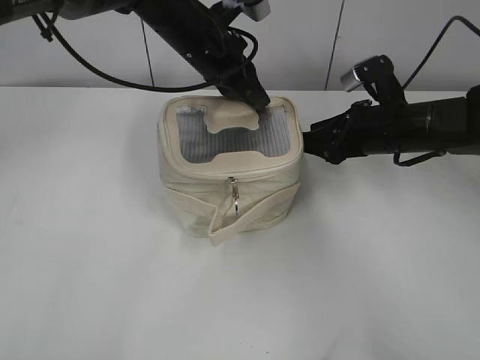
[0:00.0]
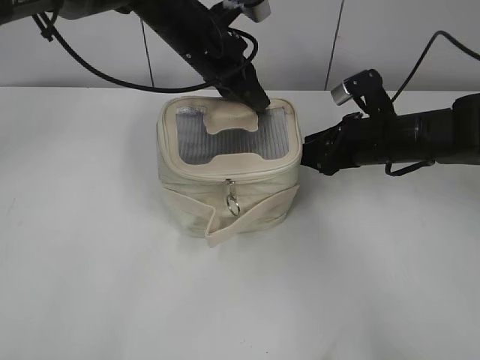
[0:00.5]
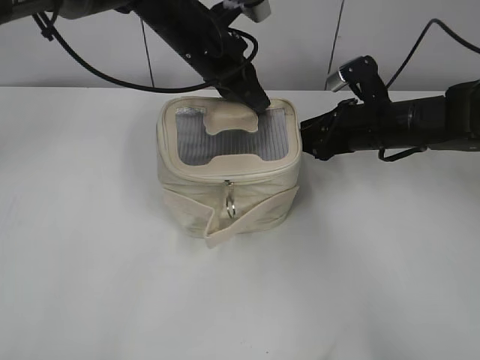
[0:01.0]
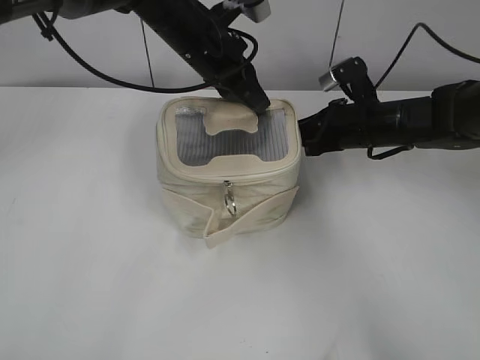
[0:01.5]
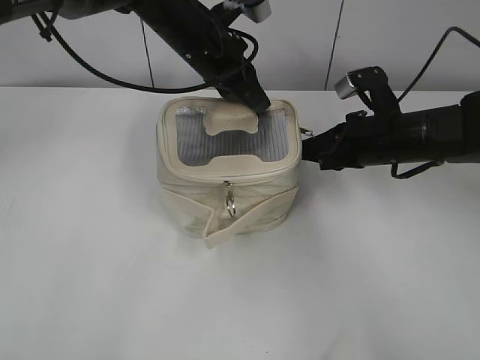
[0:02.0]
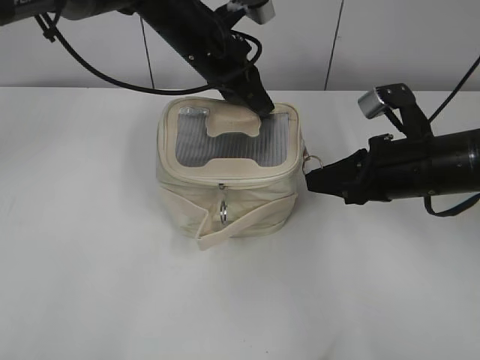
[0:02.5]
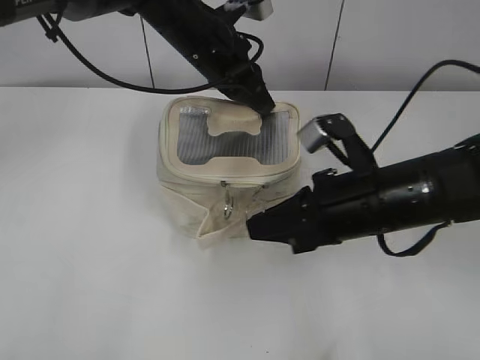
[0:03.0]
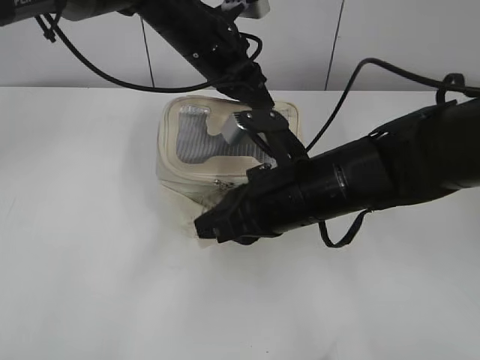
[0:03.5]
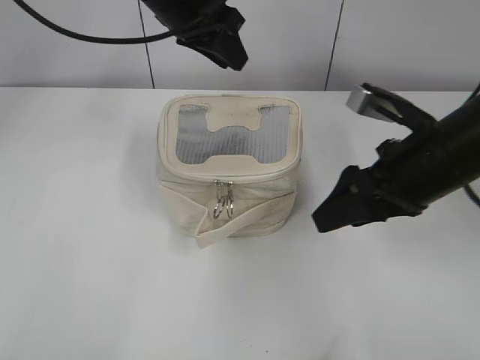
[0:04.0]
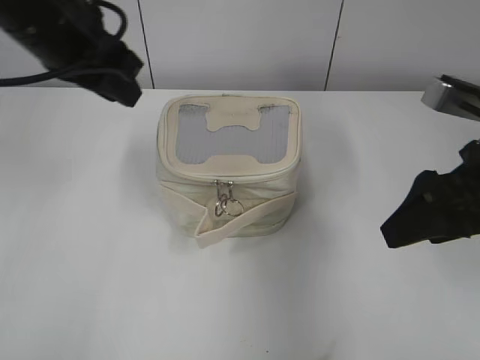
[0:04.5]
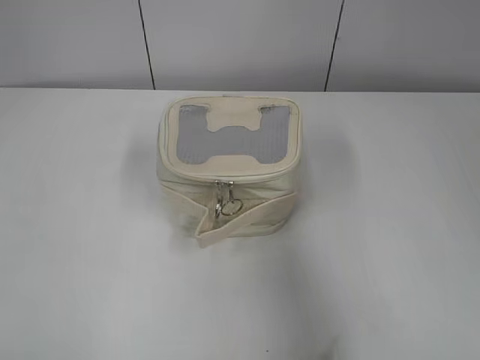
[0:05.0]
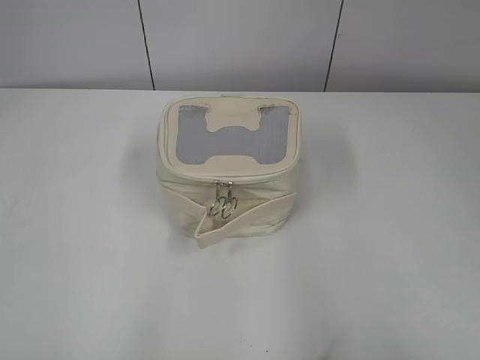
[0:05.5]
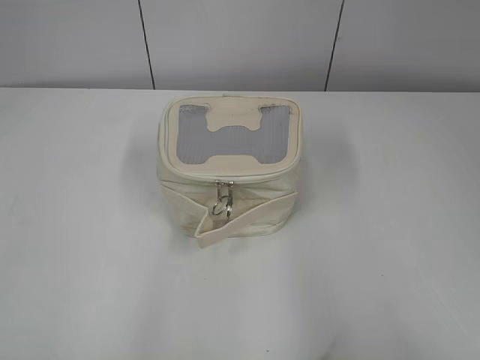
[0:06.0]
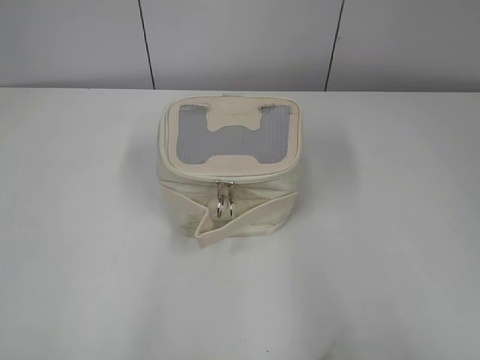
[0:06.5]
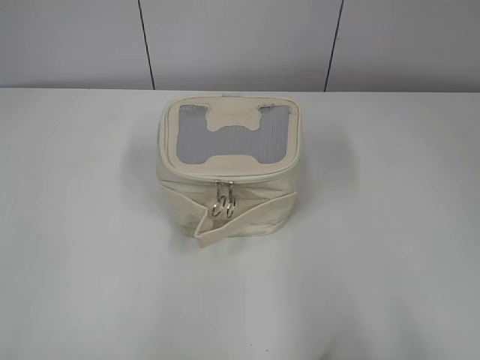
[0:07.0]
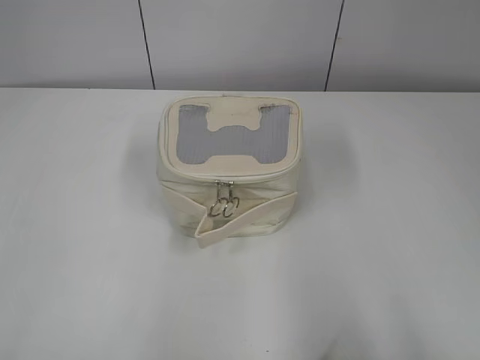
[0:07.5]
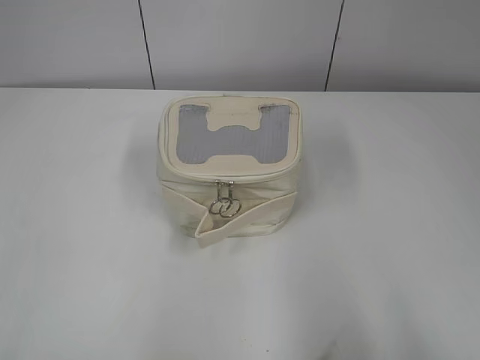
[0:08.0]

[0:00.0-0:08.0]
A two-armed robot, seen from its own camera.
Step, 0:00.0 to 0:03.5: Zip up the bag with your right hand.
0:00.0 to 0:02.0: The right gripper closes up.
0:02.0 to 0:04.0: The right gripper shifts approximately 10 cm backward and upward, travels to the left and back again, about 10 cm each way, and opens. The left gripper goes some 5 cm upward, and opens its fingers.
0:04.0 to 0:06.0: The right gripper heads backward and to the right, covering approximately 30 cm; the left gripper is displaced backward and to the left by some 50 cm, and opens.

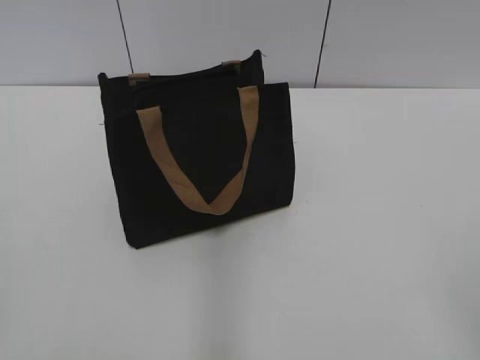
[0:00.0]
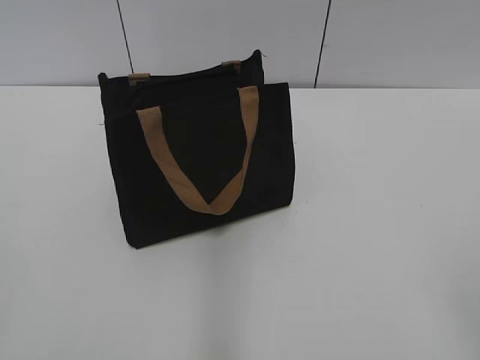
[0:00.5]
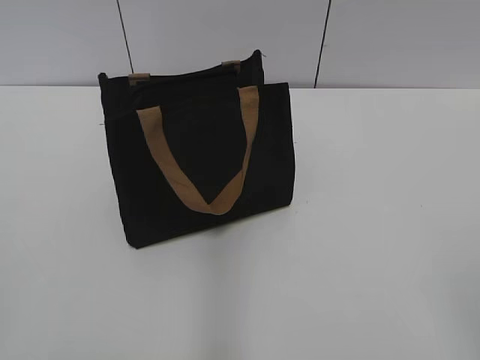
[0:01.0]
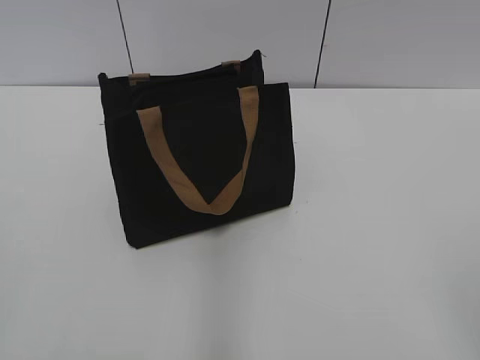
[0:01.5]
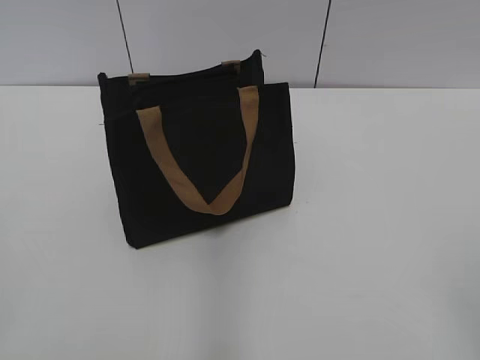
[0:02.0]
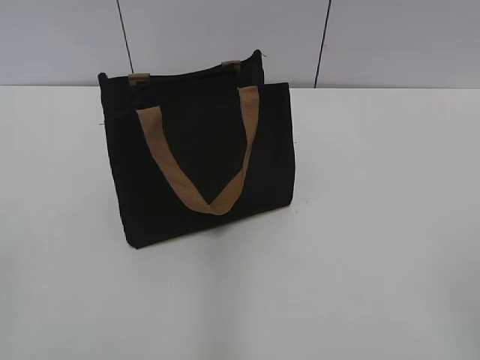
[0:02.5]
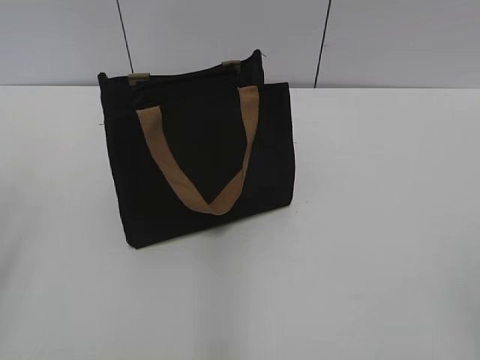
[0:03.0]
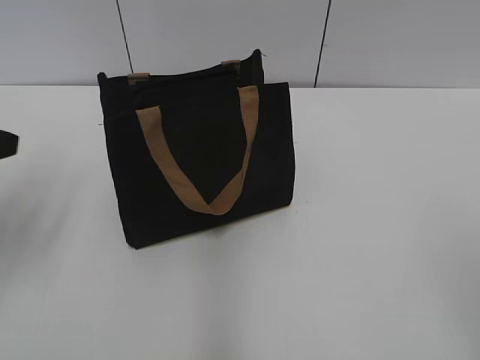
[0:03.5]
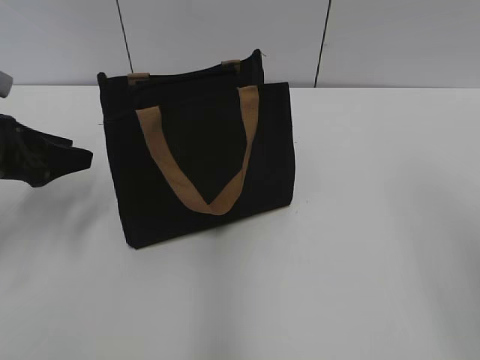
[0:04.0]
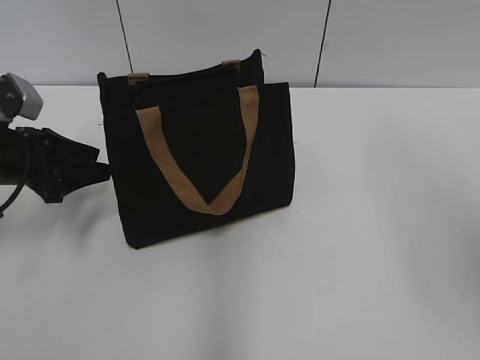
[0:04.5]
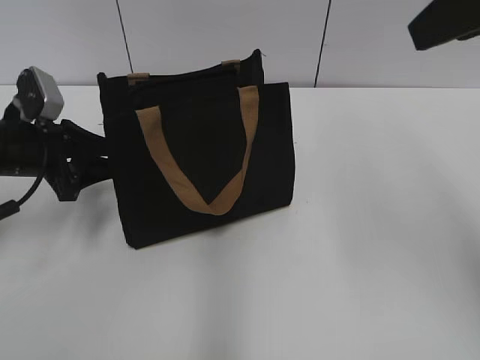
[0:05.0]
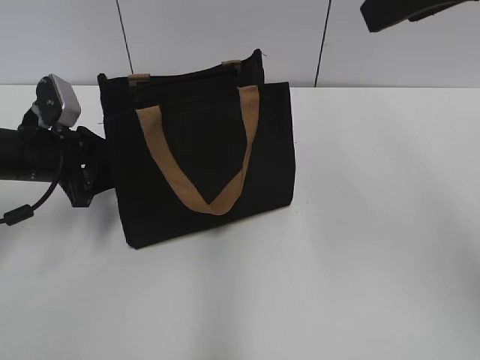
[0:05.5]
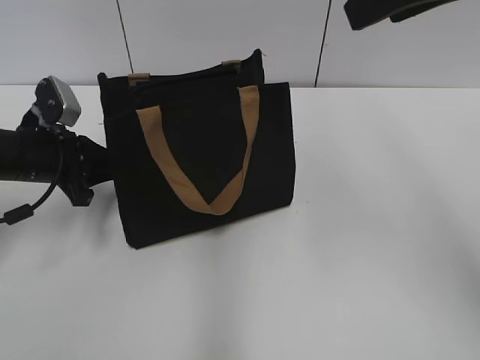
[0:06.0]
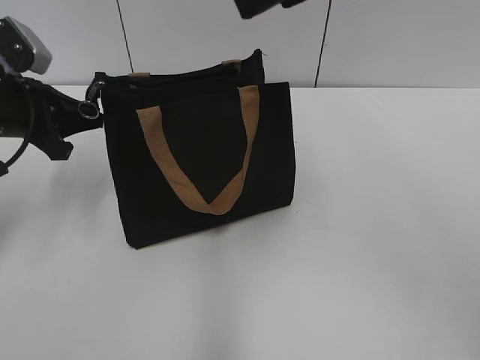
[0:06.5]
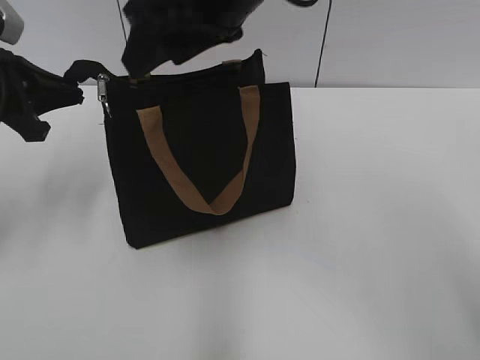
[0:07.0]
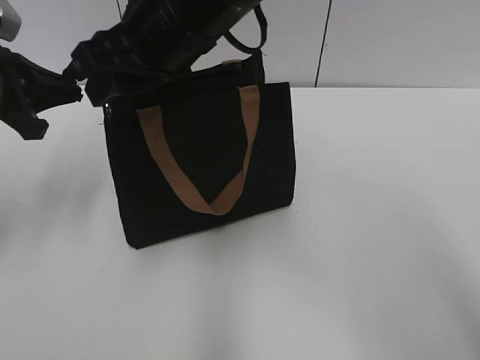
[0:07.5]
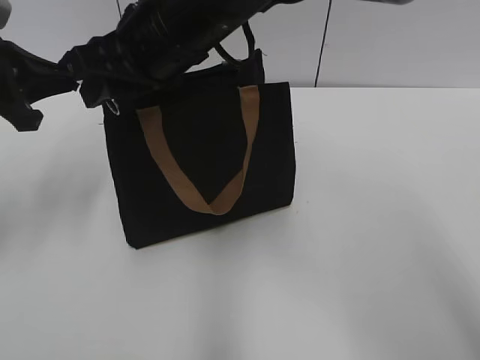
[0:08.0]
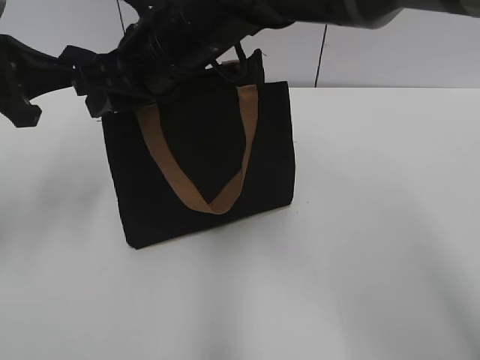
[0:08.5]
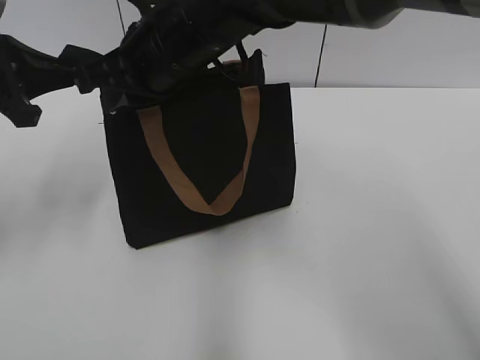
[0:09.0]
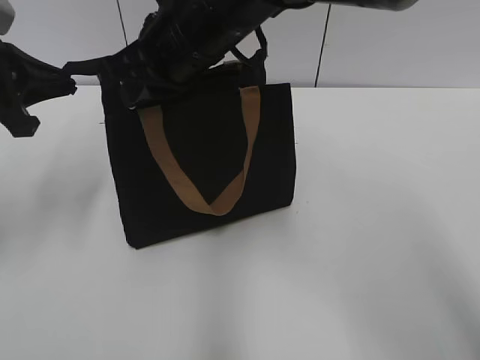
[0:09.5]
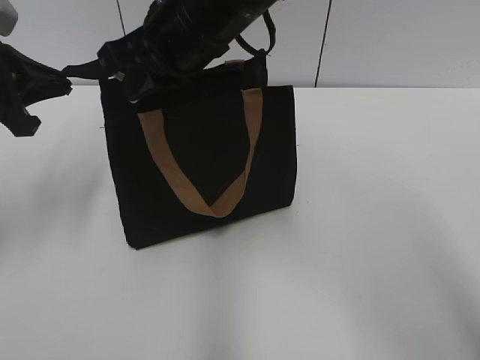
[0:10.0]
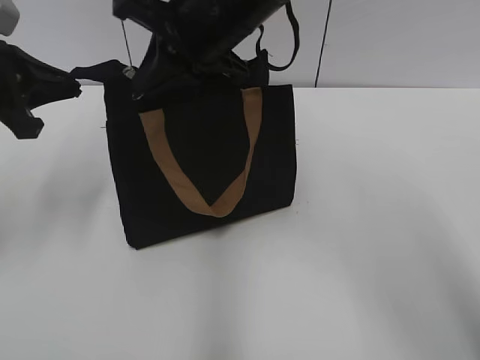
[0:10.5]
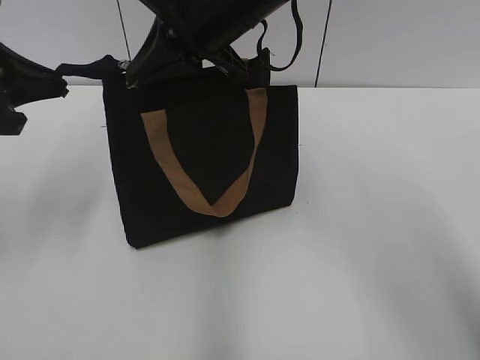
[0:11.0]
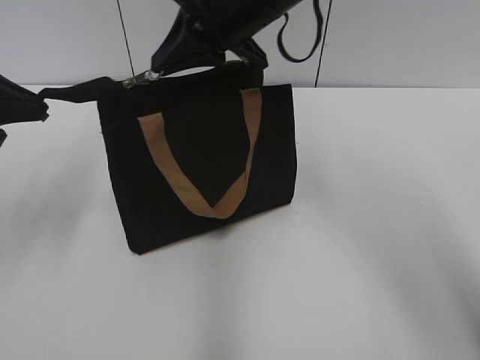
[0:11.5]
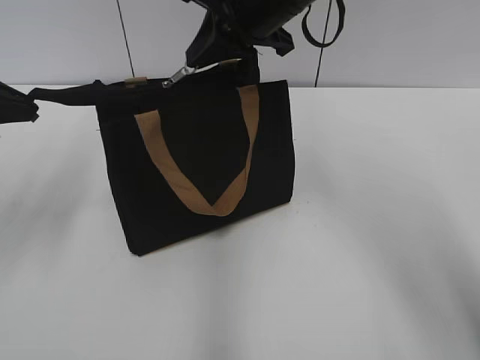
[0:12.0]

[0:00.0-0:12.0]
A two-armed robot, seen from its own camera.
0:02.0 to 0:04.0: The left gripper is displaced forward by roughly 30 cm.
0:04.0 to 0:06.0: The left gripper moves about 5 cm, and closes its fingers. Meanwhile the right gripper moves forward and to the left, some 20 cm.
0:06.0 to 0:08.0: The right gripper is displaced to the left and downward by approximately 25 cm. Meanwhile the left gripper is displaced upward by about 15 cm.
0:08.0 to 0:10.0: The right gripper closes its fingers.
0:10.0 to 0:12.0: The right gripper goes about 5 cm to the right.

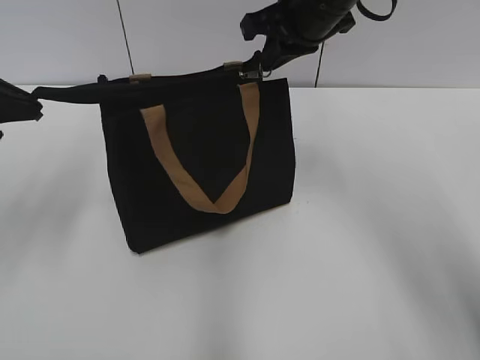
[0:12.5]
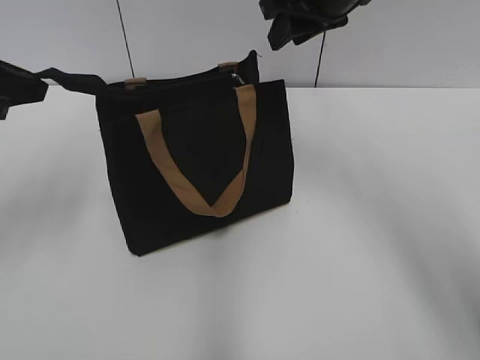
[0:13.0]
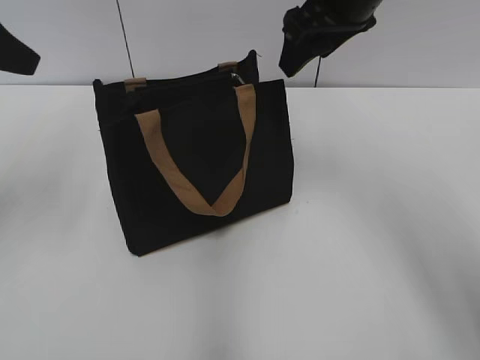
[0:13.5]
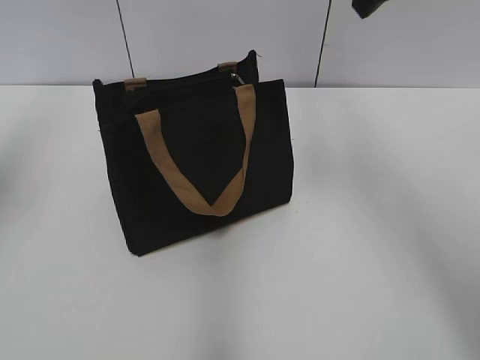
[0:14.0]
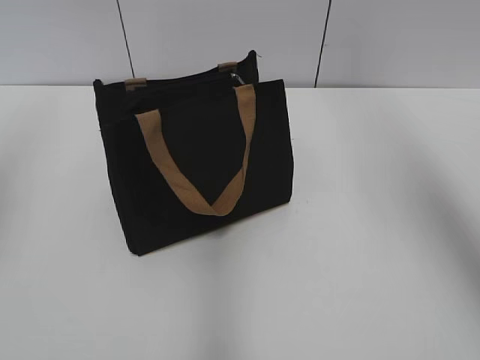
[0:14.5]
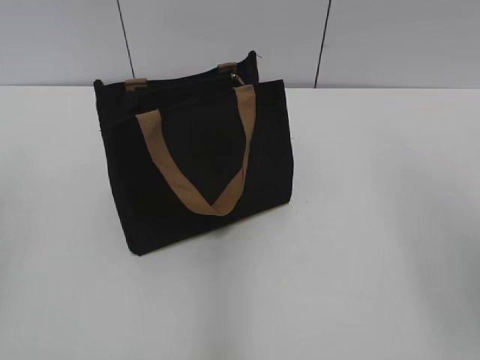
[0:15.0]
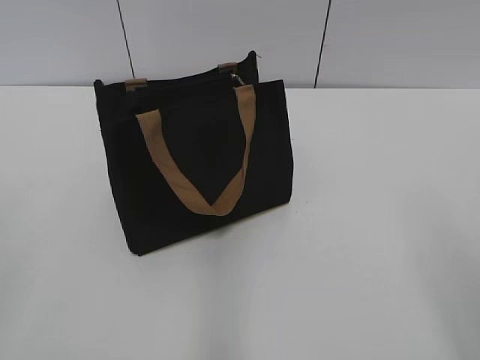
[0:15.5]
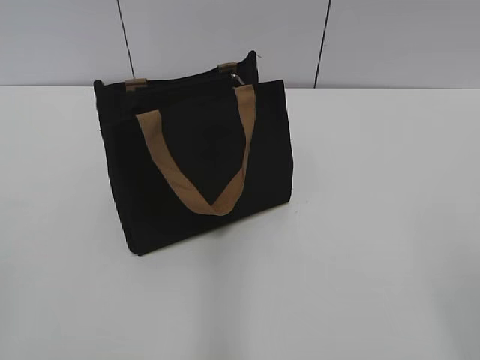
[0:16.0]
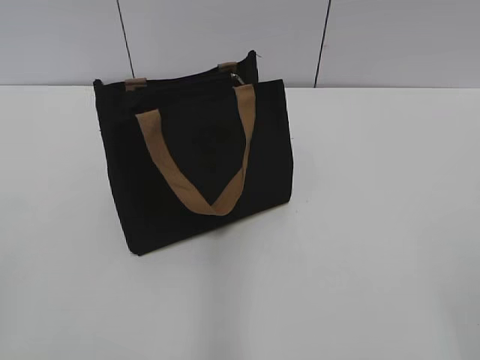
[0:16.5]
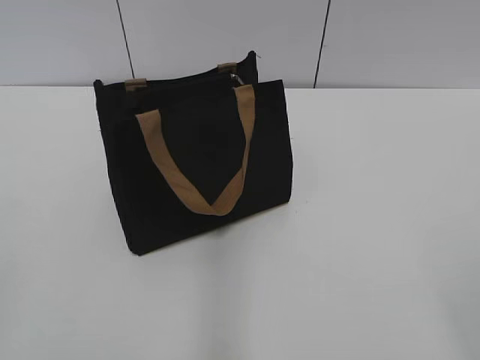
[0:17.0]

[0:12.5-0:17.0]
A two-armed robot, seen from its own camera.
0:12.5 to 0:14.5: The right gripper goes about 25 cm upward, backward and to the right, and opens its fingers, while the left gripper moves upward, some 15 cm, and opens up.
0:14.5 to 0:17.0: The right gripper heads backward and downward, covering approximately 35 cm.
